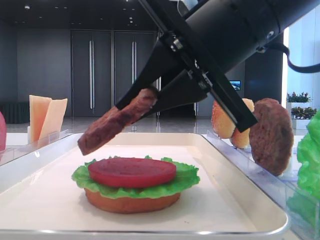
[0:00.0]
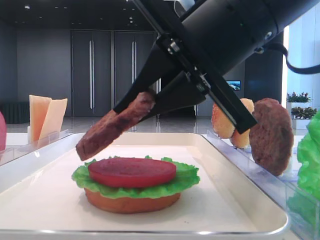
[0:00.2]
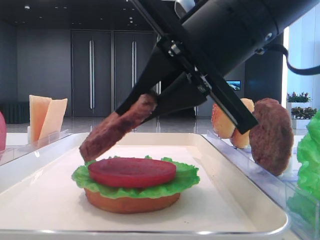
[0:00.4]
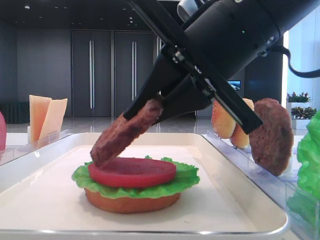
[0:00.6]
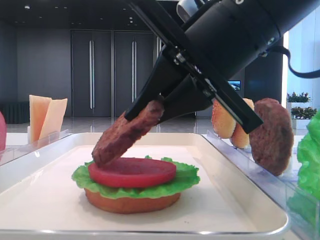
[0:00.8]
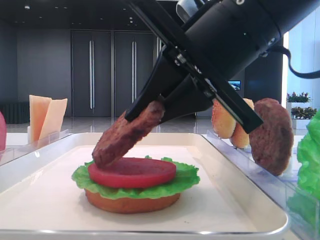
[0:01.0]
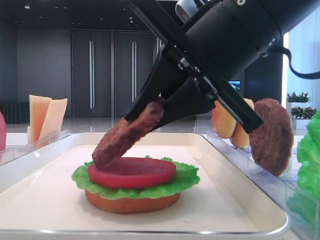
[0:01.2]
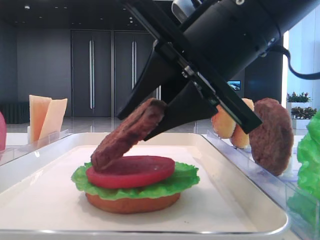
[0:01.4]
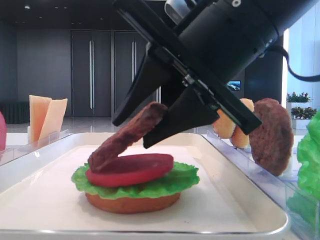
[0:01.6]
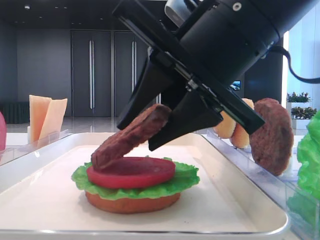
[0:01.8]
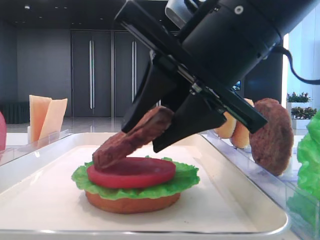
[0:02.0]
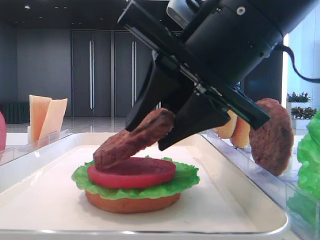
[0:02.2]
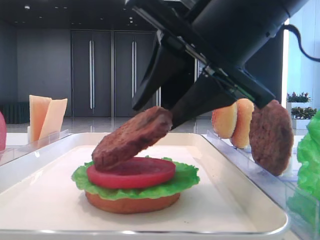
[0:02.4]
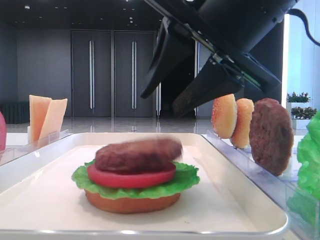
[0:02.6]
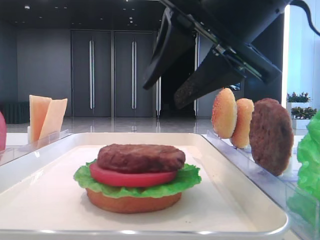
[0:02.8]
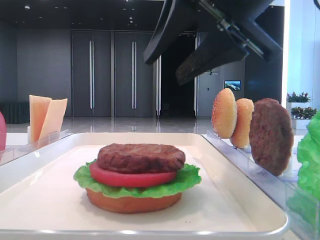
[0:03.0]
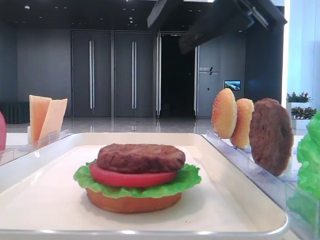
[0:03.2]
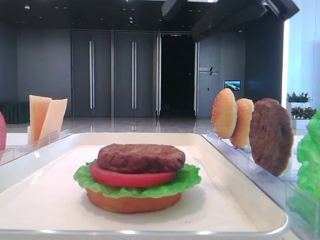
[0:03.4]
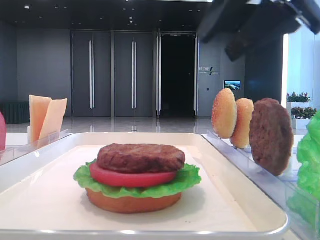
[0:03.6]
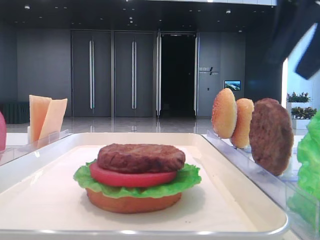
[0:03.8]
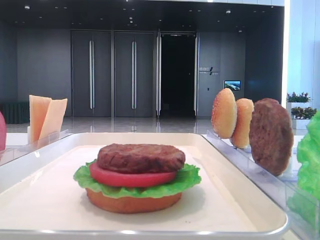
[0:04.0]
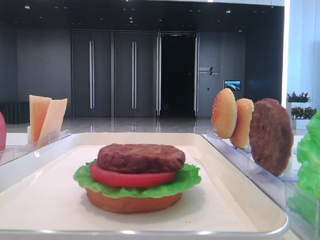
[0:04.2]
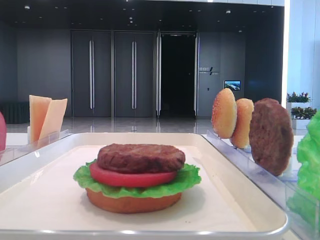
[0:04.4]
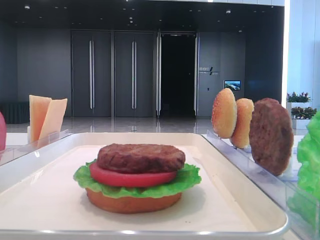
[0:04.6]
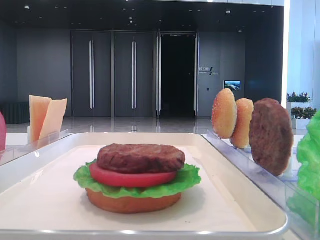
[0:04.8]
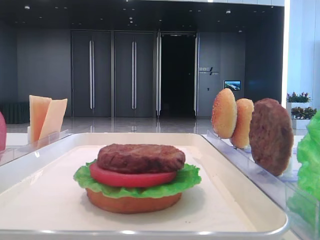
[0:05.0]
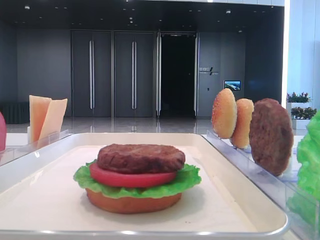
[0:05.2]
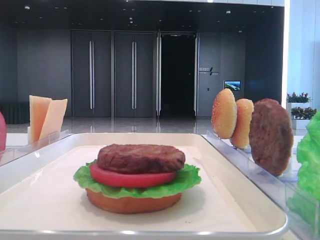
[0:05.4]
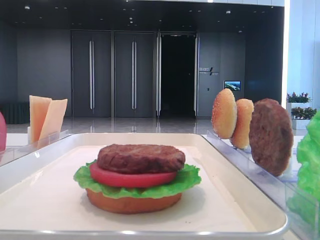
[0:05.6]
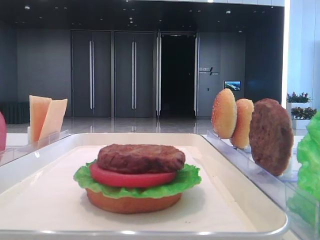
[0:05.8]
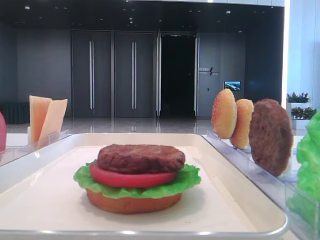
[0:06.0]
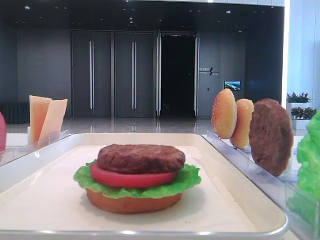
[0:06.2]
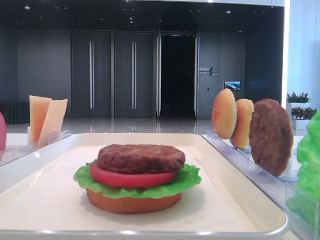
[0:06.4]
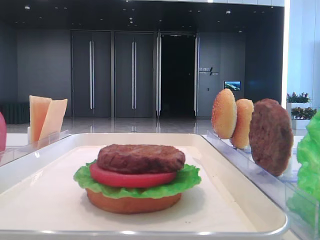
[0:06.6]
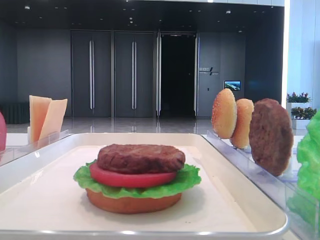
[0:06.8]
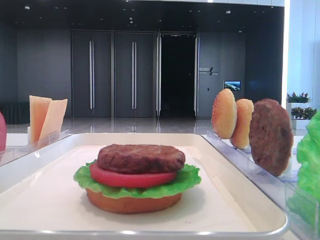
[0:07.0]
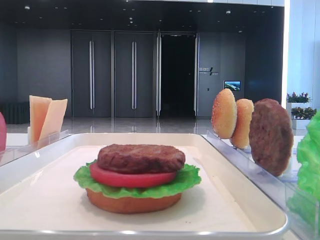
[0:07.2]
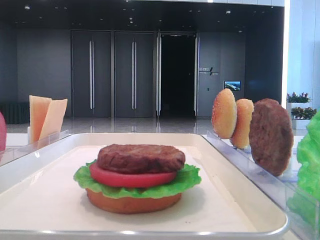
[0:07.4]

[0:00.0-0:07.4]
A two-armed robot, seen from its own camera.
Step, 0:00.0 to 0:02.6: Place the patty on the tomato slice with the right hand.
0:00.0 to 0:01.4: The right gripper opens its fingers.
0:01.4 to 0:03.0: The right gripper shifts by some 5 cm.
0:03.0 to 0:04.4: The right gripper is displaced to the right by about 20 cm.
